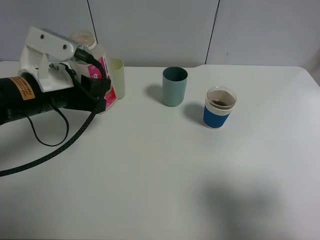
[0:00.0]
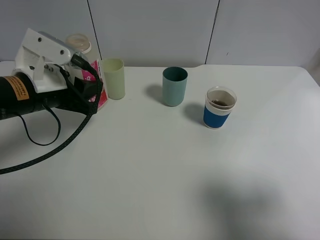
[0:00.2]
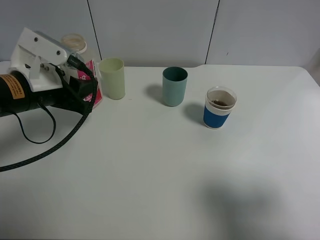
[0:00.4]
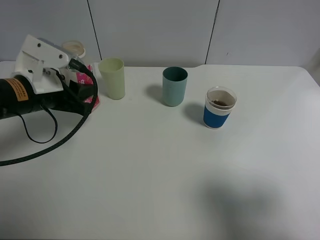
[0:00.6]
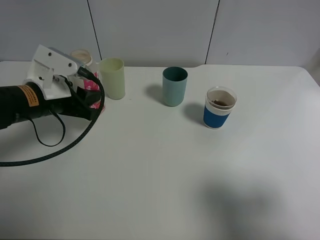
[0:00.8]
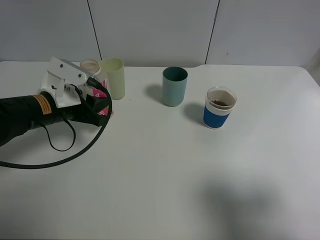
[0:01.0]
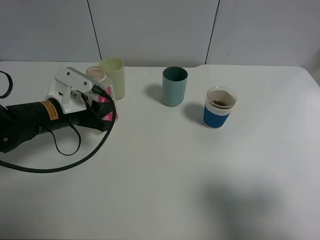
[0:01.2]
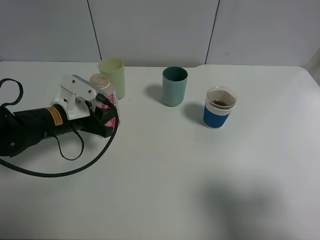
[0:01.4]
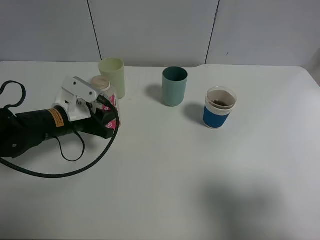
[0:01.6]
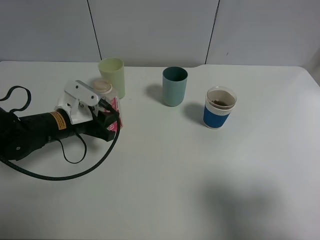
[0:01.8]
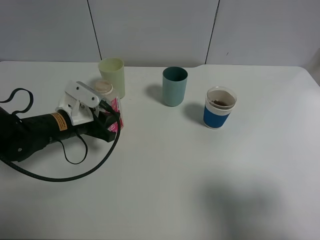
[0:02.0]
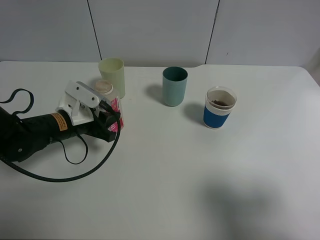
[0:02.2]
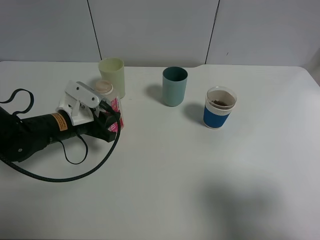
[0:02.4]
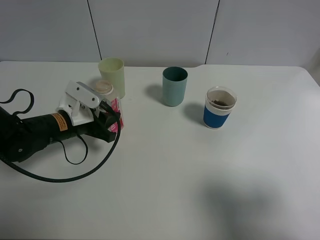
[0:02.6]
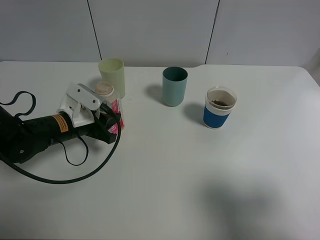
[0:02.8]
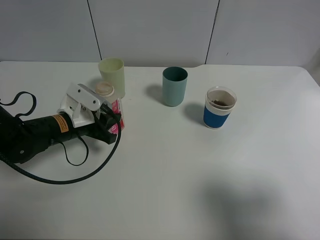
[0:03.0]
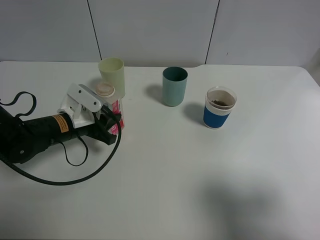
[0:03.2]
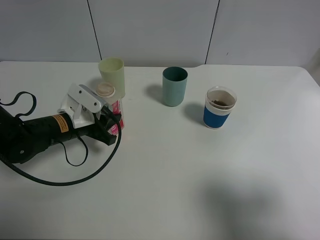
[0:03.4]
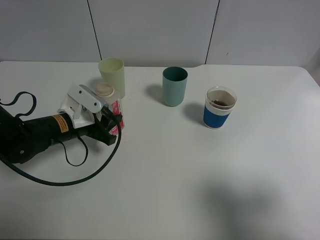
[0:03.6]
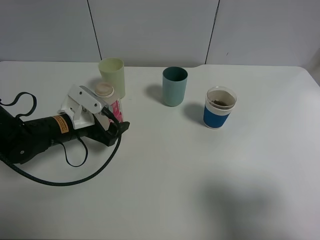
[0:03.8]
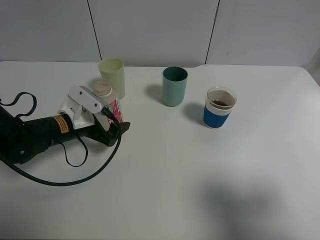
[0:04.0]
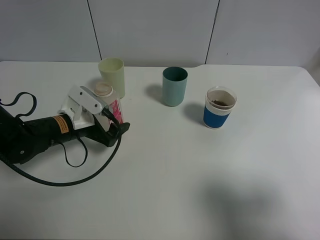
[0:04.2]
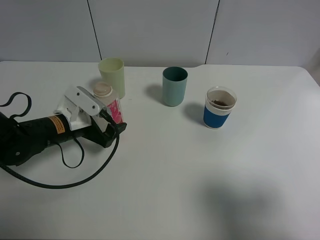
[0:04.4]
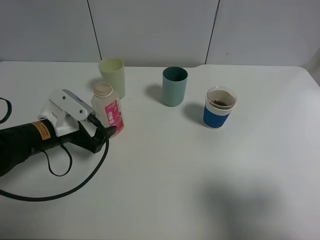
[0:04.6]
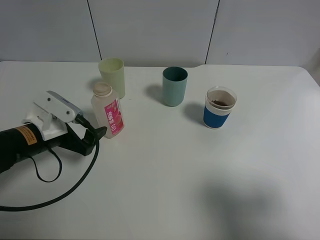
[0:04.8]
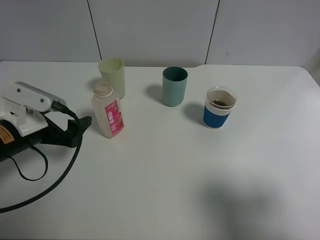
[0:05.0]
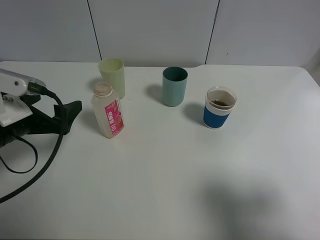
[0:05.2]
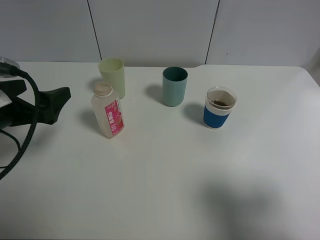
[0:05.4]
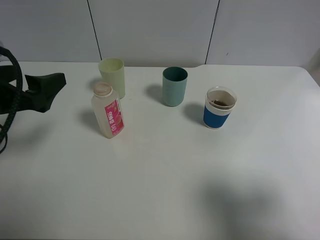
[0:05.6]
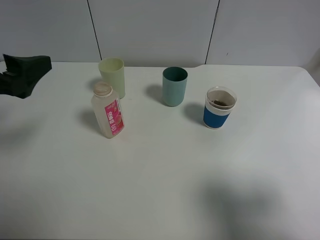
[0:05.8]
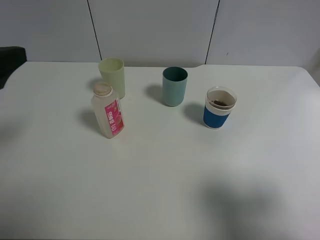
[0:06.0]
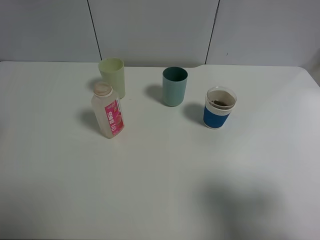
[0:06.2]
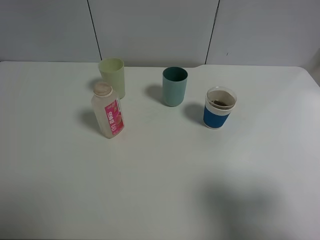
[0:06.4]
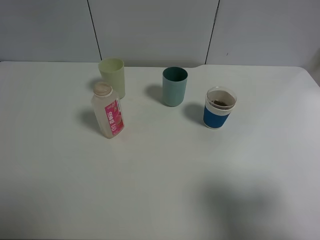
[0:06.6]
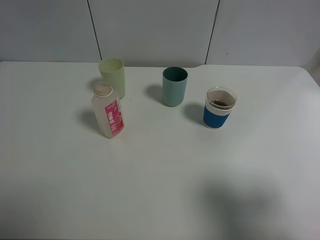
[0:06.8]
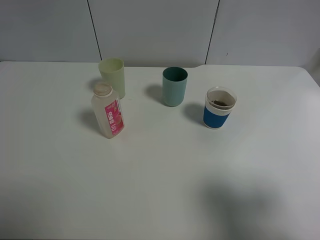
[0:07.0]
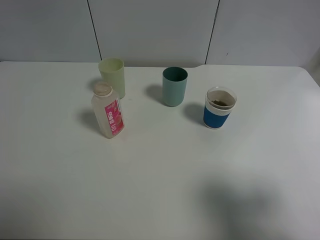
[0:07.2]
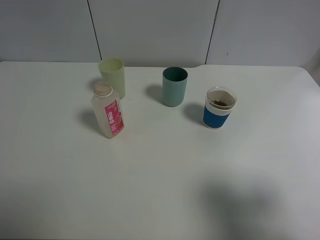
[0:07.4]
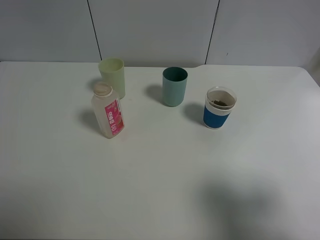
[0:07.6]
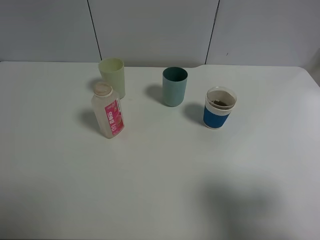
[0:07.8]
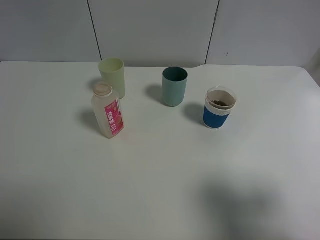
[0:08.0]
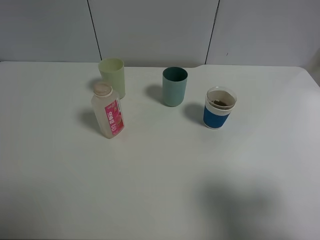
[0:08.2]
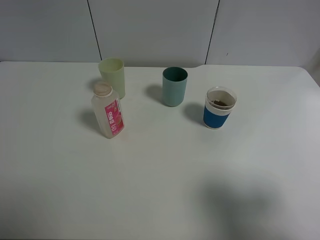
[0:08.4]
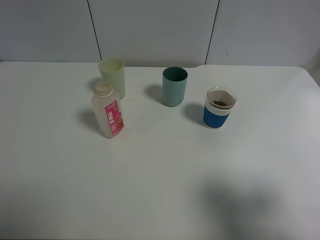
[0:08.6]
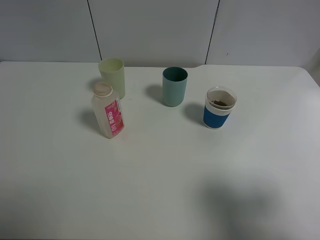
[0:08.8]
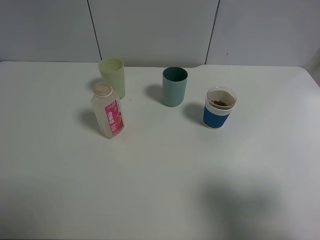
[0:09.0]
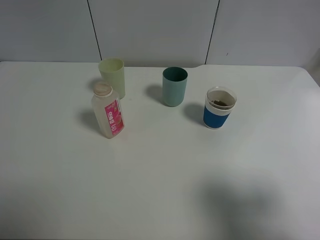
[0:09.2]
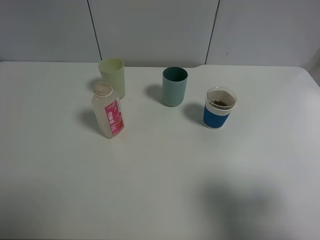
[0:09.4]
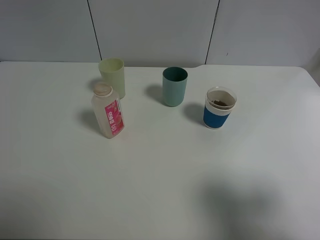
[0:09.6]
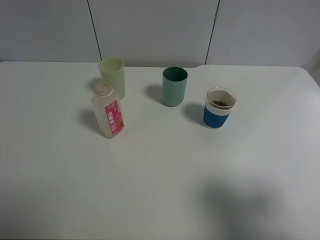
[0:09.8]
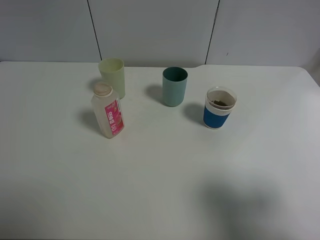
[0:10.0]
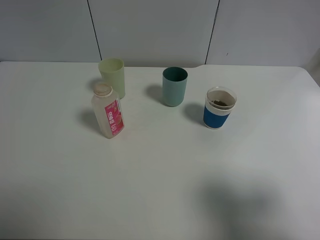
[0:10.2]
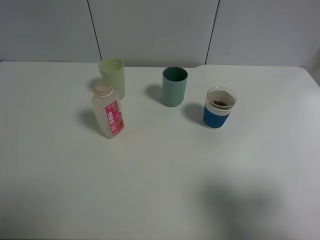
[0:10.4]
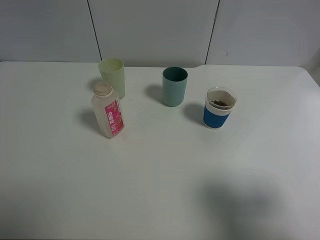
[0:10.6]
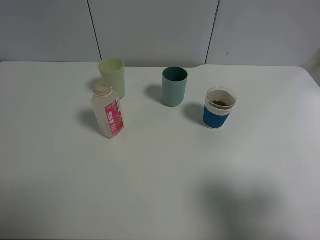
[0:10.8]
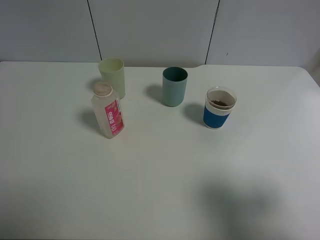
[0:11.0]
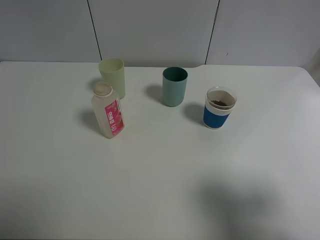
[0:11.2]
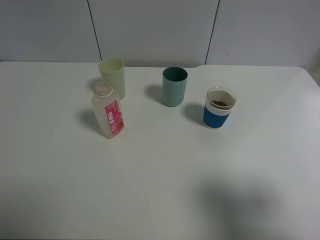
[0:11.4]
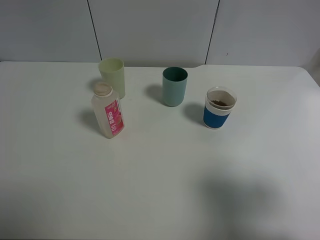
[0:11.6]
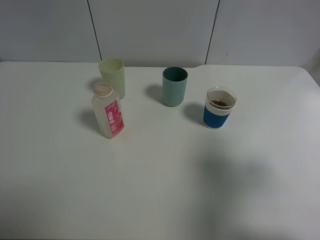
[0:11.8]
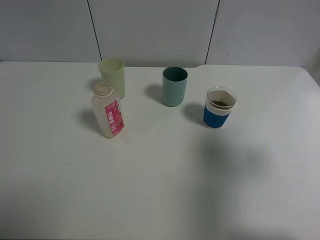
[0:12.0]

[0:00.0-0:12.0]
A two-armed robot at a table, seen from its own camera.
Task of the whole recording: use a clamp to hold the bottle of the drink, pour the beverage into a random cup, then clamp the cup containing the drink and pour the drink into another random cup.
Step, 0:00.0 to 0:03.8: Place the drink bottle on the table with left gripper.
0:00.0 to 0:01.6: The left gripper shifts roughly 10 cm downward.
0:01.6 to 0:03.0: The grippers stay close to where they were, moving slightly.
0:03.0 to 0:04.4: The left gripper opens up.
0:04.4 to 0:06.0: The left gripper goes roughly 25 cm upward, backward and to the left.
0:06.0 to 0:07.6: The left gripper goes roughly 15 cm backward.
0:10.4 to 0:12.0: The right gripper is displaced forward by approximately 10 cm.

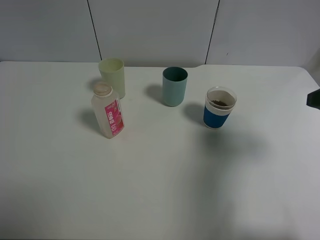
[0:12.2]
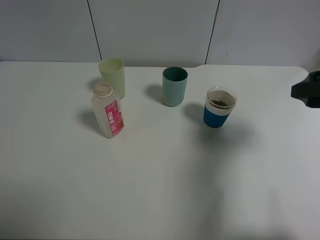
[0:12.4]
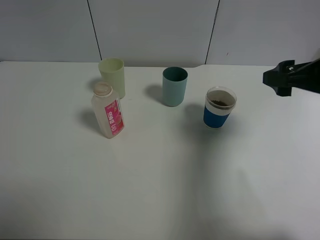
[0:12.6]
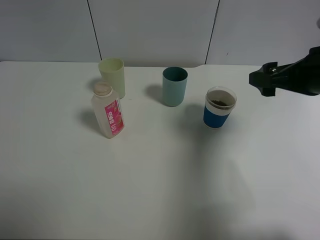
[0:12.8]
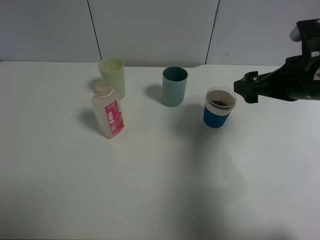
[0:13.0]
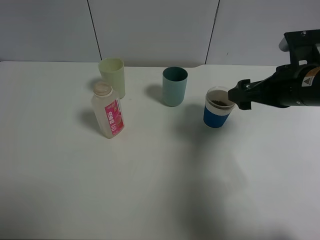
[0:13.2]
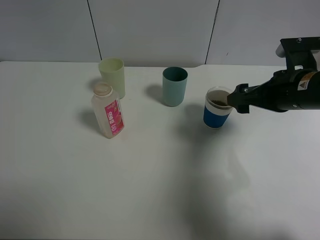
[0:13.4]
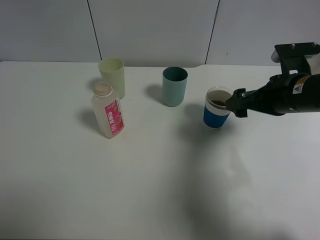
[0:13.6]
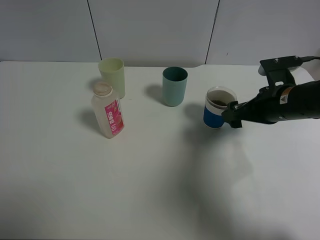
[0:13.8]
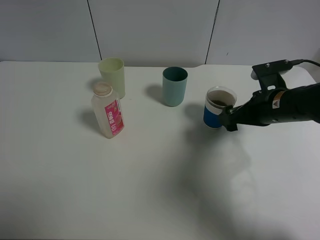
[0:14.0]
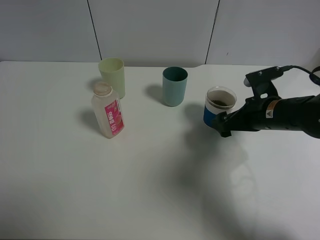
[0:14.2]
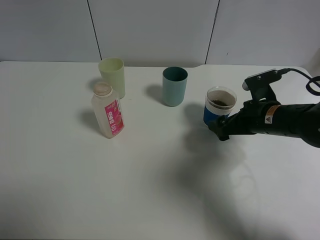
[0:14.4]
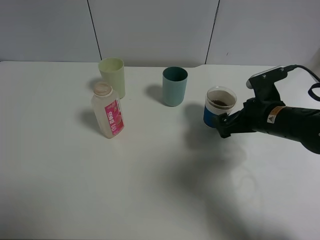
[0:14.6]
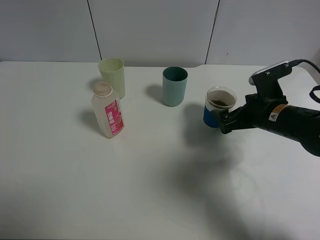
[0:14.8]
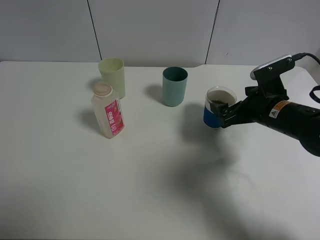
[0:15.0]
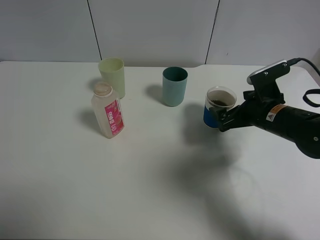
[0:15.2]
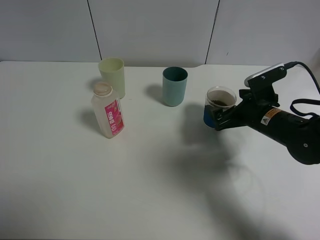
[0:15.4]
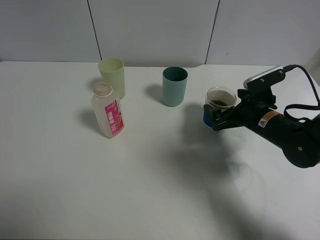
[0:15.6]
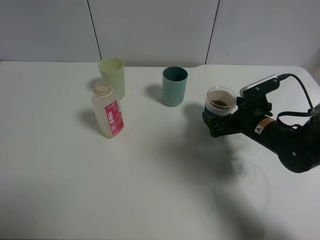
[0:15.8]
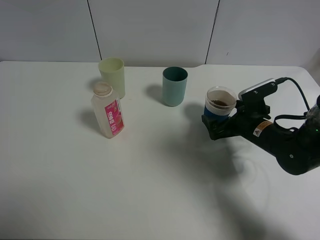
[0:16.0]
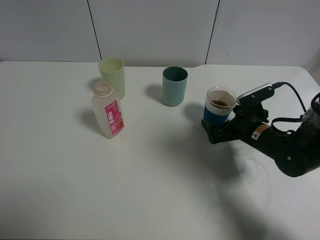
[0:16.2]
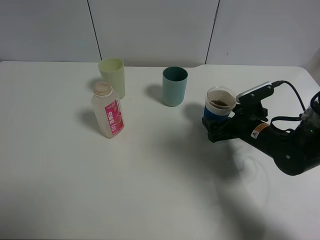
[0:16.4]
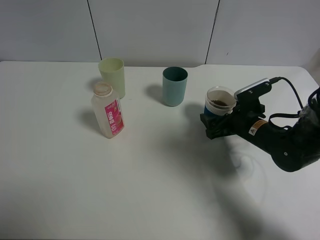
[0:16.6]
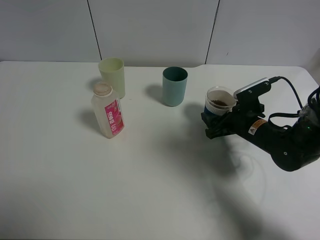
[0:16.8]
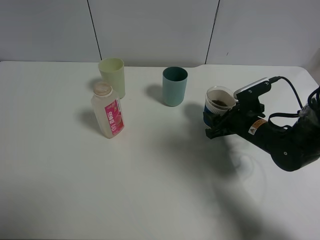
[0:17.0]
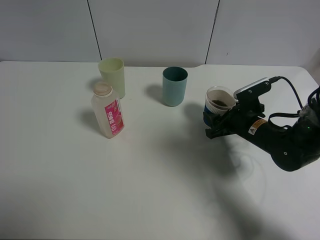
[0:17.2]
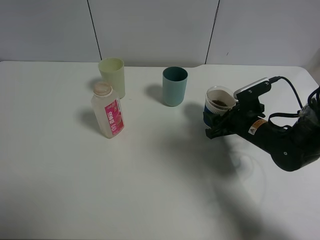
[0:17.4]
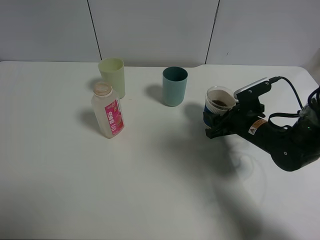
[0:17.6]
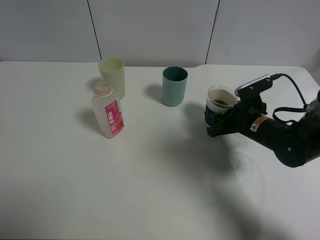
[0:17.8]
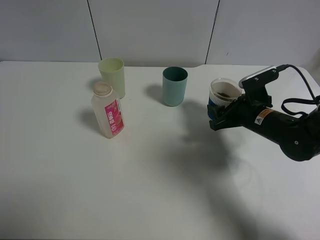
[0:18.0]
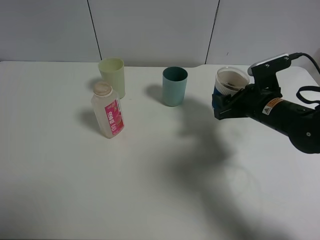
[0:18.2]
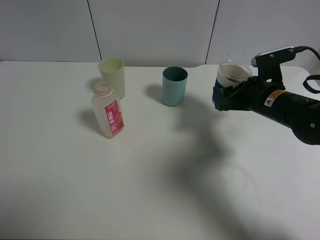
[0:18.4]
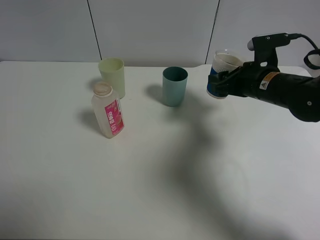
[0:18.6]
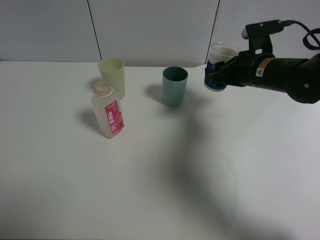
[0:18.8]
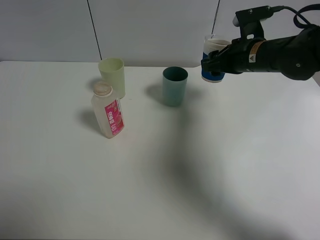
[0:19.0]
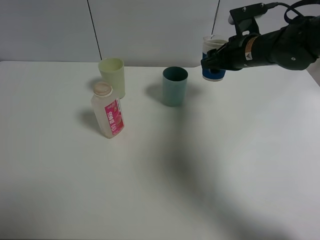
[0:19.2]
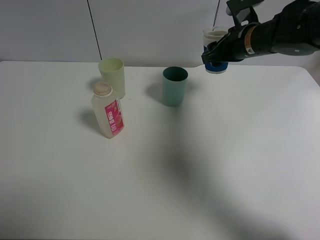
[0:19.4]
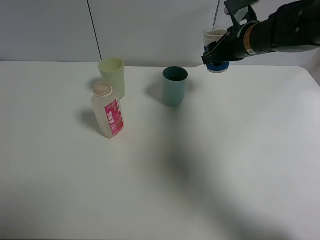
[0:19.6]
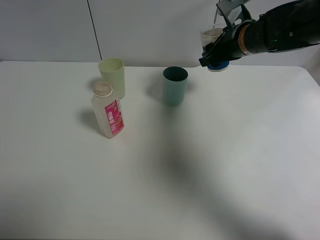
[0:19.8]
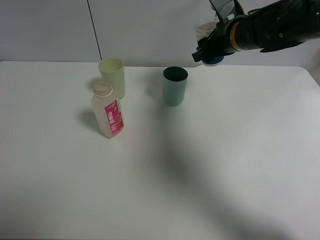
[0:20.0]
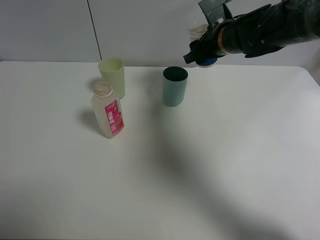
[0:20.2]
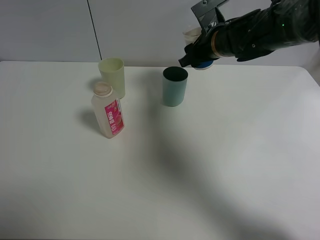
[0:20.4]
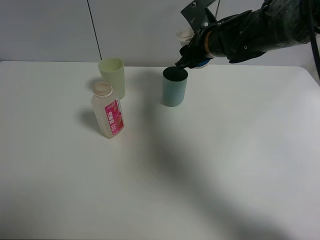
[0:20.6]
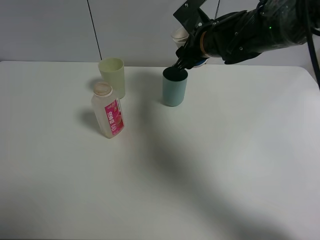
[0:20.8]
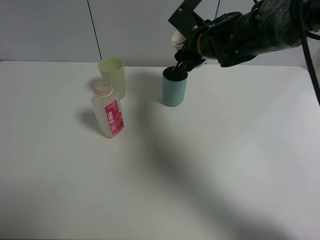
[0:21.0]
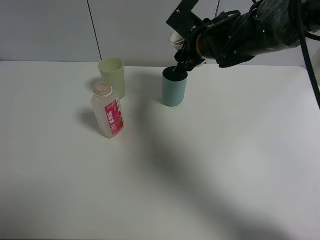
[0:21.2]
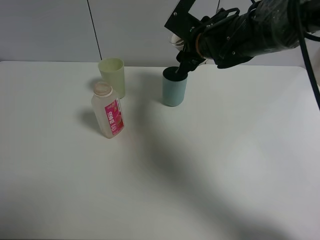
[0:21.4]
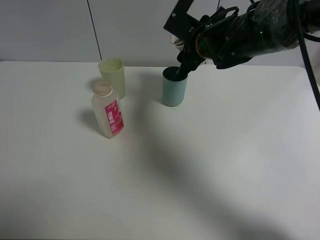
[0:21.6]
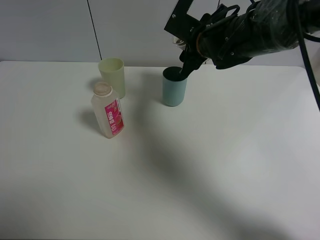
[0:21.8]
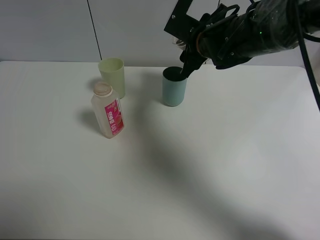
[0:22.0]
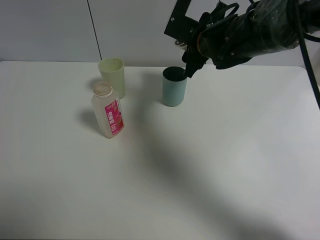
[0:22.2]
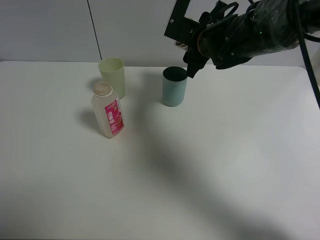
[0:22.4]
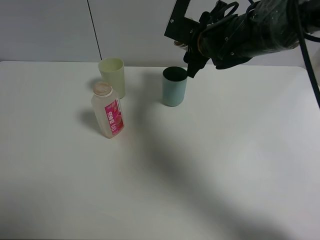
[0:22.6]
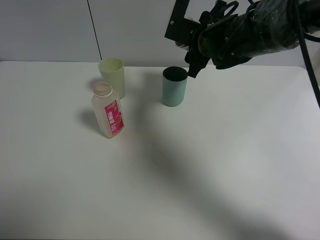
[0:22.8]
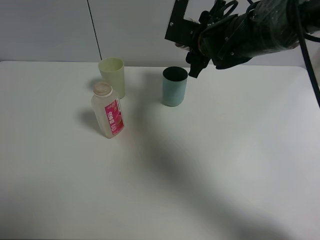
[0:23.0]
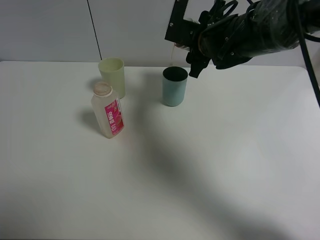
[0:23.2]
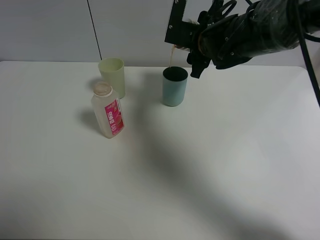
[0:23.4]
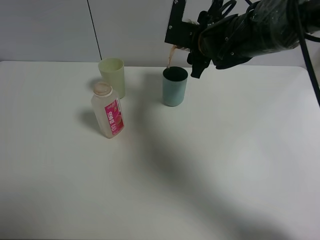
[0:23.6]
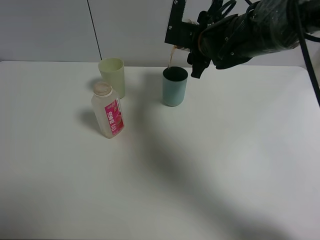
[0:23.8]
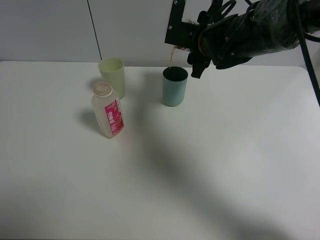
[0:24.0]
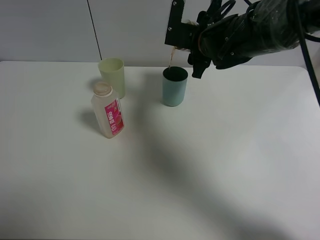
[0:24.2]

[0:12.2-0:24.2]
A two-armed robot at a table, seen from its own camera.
Task of the whole recording: use a clamp to hold the bottle of the drink, pour the beverage into a random cup, then clamp the cup containing the drink and pour the drink into another random cup.
0:12.2 to 0:13.8: The right gripper is displaced downward, forward and to the left by roughly 15 cm.
0:15.2 to 0:16.6: The right gripper is displaced downward by approximately 5 cm, and closes.
0:16.6 to 0:18.2: The right gripper shifts about 5 cm upward, and closes.
0:18.2 to 0:19.8: The right gripper goes some 15 cm forward and upward.
0:19.8 to 0:21.2: The right gripper is displaced to the left by approximately 10 cm.
0:22.6 to 0:24.2: The grippers stay close to where they were, moving slightly.
